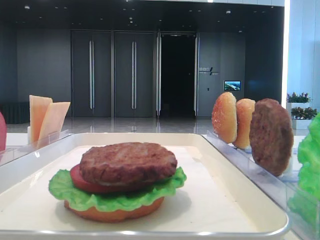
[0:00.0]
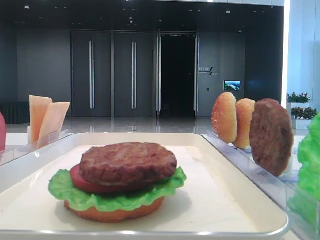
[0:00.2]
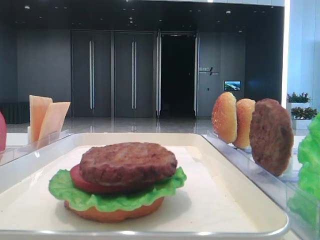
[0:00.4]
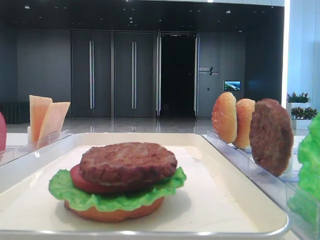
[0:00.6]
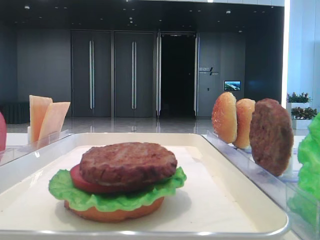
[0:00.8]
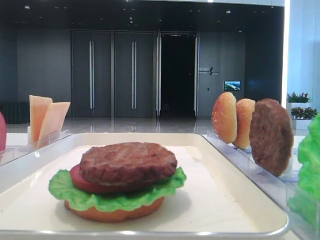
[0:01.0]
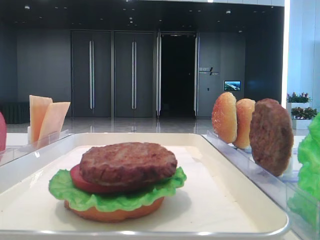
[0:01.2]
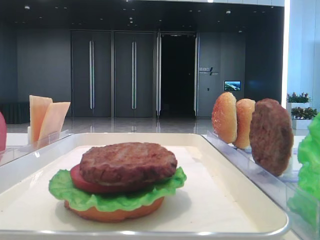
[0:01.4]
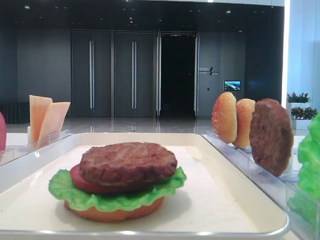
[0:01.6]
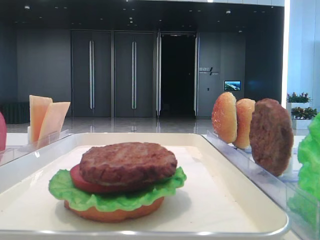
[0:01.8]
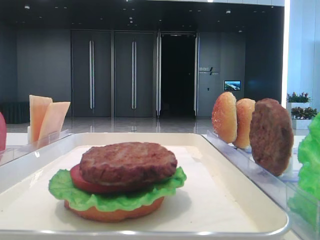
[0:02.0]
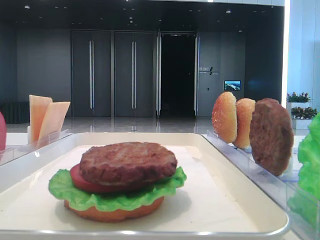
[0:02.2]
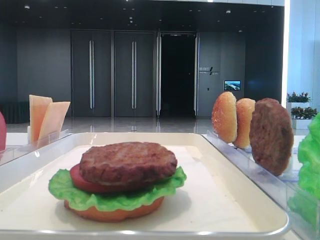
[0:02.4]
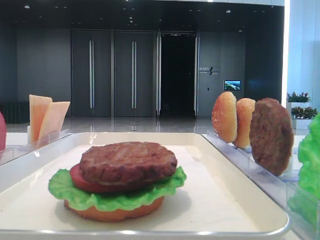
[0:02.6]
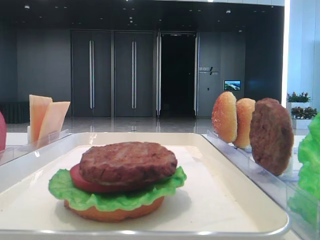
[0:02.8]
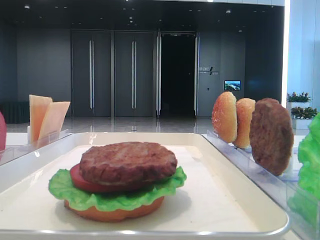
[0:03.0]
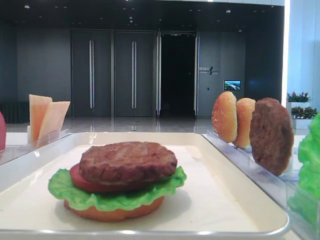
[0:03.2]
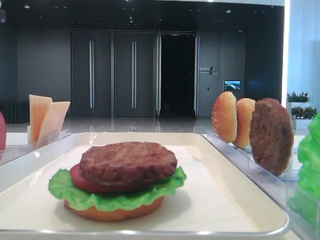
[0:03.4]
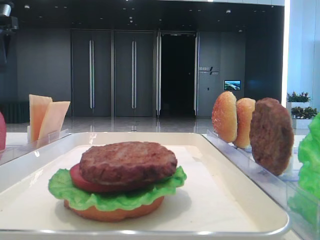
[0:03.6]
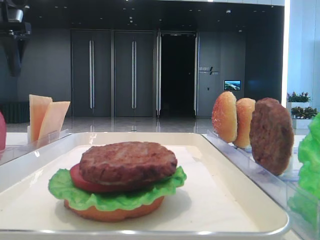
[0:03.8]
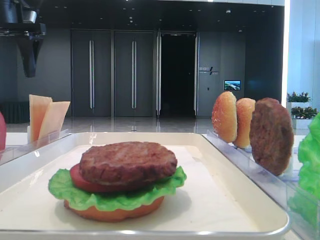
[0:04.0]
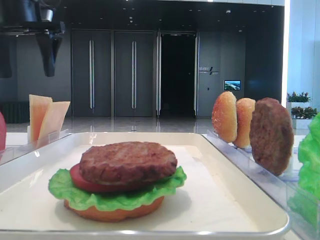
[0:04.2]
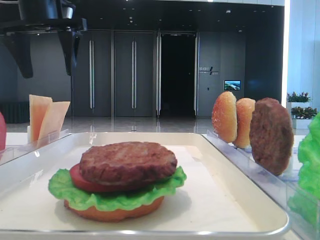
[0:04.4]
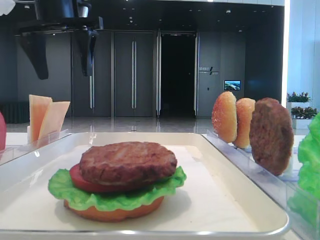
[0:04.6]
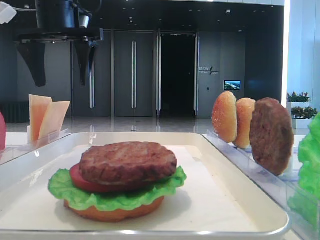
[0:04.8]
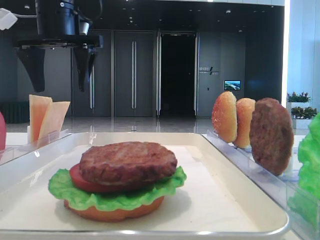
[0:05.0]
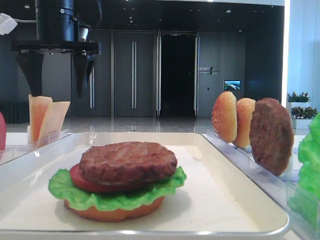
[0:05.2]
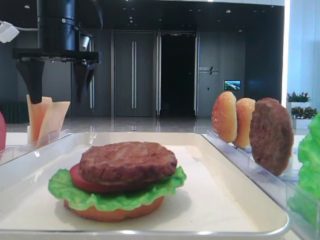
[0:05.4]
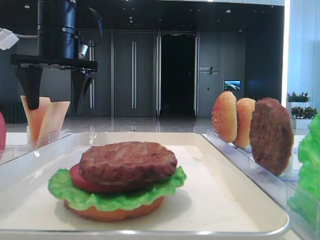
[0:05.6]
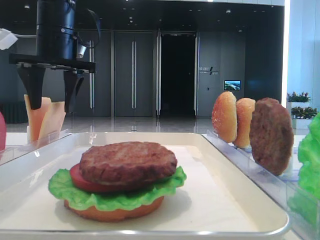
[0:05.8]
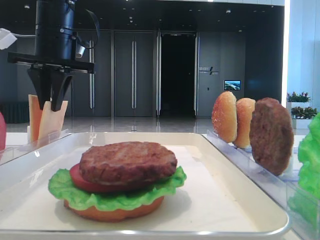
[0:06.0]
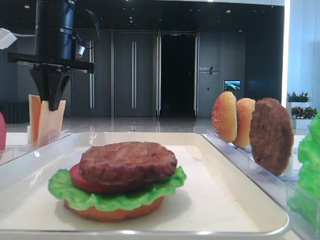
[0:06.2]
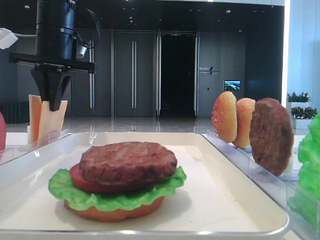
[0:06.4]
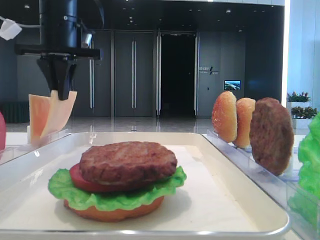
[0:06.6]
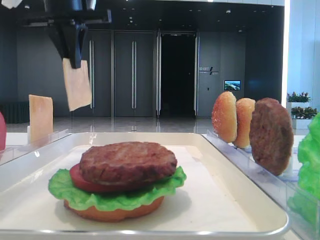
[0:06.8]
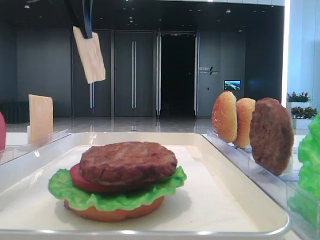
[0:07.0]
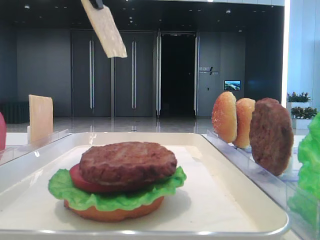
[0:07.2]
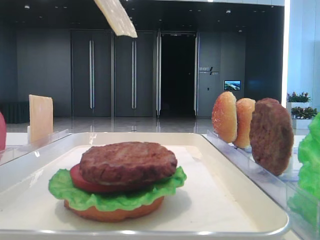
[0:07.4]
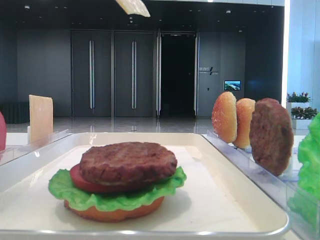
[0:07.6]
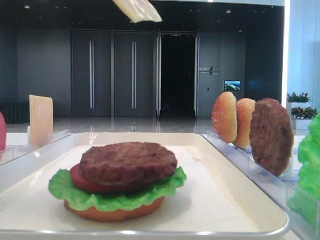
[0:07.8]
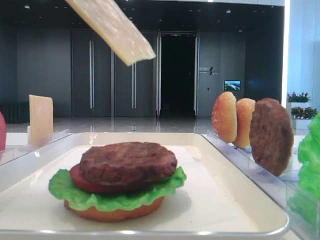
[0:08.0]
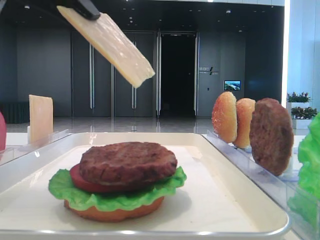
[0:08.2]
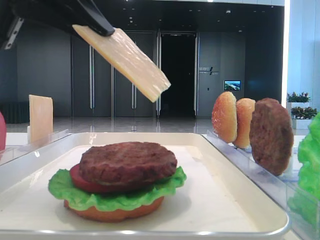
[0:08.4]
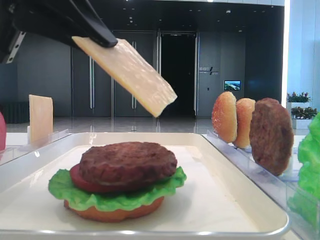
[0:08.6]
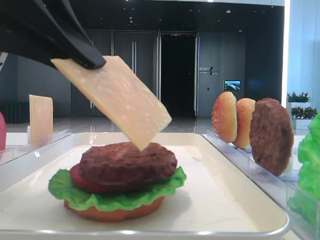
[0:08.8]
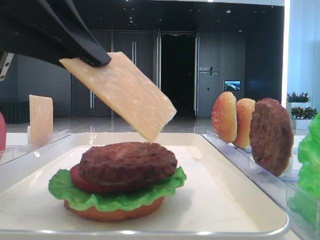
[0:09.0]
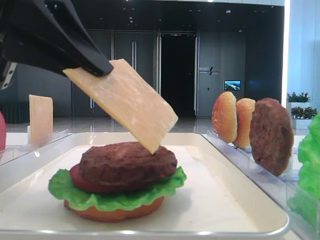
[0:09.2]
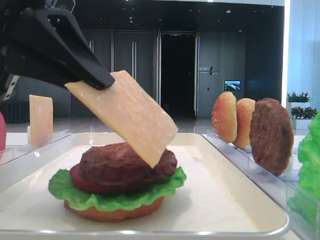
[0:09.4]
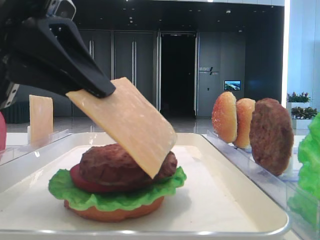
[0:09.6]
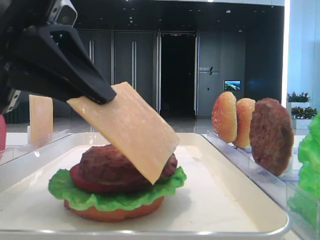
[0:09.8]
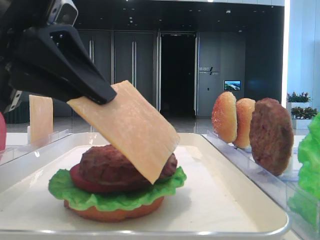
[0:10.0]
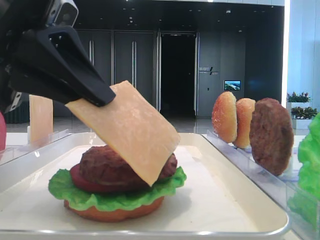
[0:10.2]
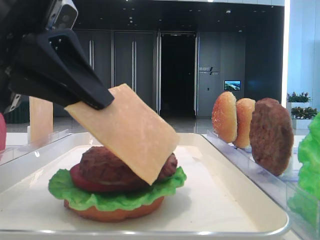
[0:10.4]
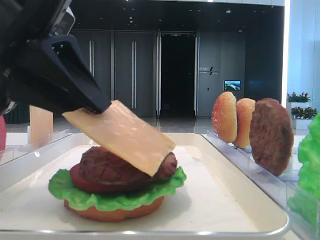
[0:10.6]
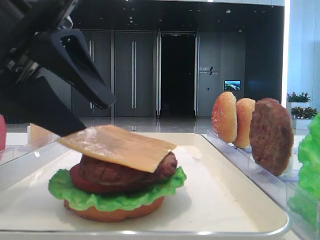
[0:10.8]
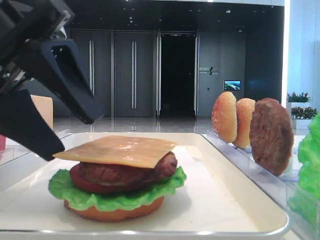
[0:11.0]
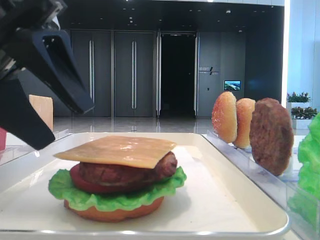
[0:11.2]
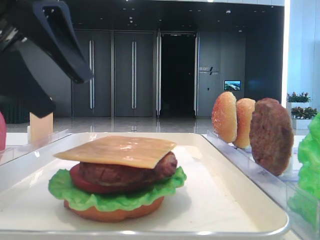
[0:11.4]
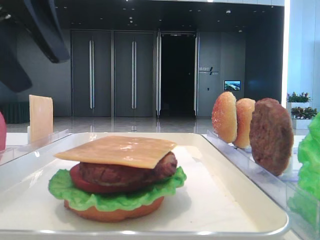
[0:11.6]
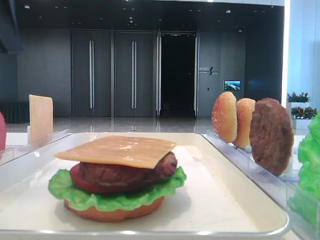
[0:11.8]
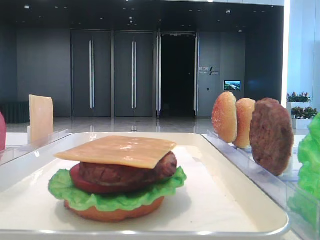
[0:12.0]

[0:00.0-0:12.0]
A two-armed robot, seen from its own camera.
Step, 0:00.0 to 0:06.2: Pick up the cheese slice with the left hand.
Step, 0:06.6 to 0:10.8: Place the cheese slice on the patty with the left hand.
0:03.0 to 0:04.4: The left gripper moves to the right and forward, some 15 cm.
0:04.4 to 0:06.0: The left gripper shifts roughly 5 cm downward, and closes.
0:06.0 to 0:07.6: The left gripper heads backward and upward, covering roughly 25 cm.
0:07.6 to 0:09.0: The left gripper travels downward by roughly 10 cm.
0:09.0 to 0:10.4: The grippers stay close to where they were, moving slightly.
0:10.4 to 0:12.0: The left gripper heads to the left and upward, covering approximately 15 cm, and opens its fingers.

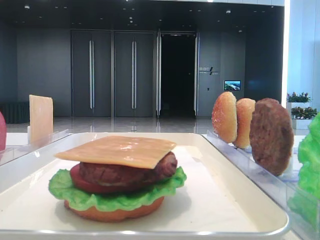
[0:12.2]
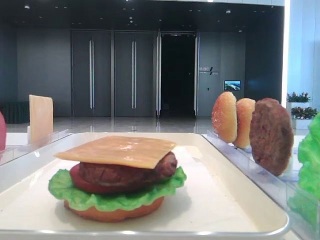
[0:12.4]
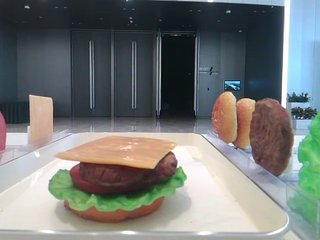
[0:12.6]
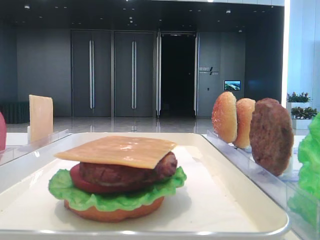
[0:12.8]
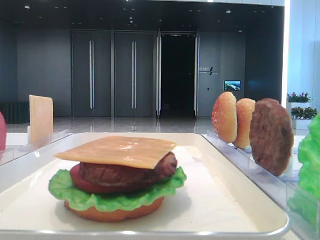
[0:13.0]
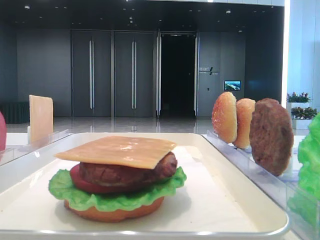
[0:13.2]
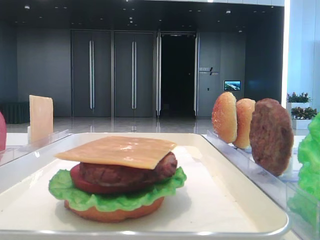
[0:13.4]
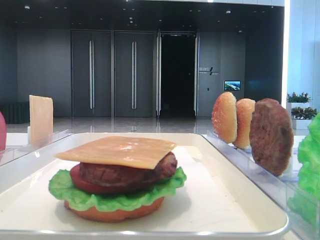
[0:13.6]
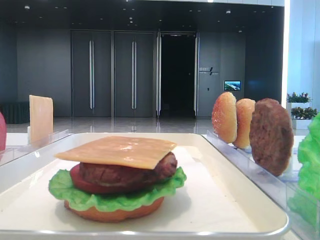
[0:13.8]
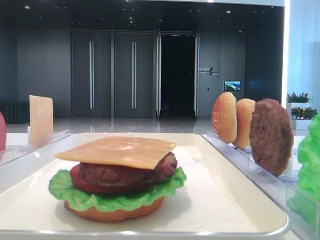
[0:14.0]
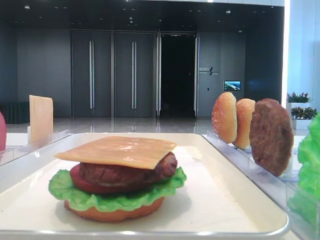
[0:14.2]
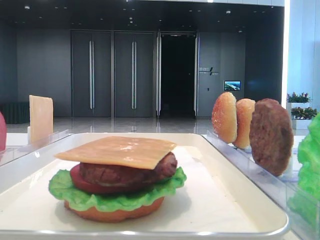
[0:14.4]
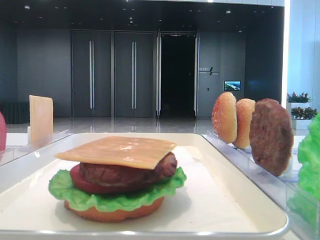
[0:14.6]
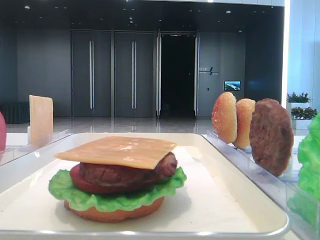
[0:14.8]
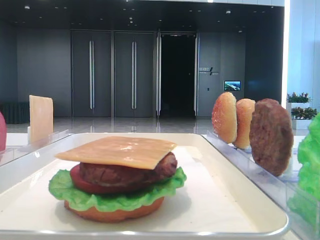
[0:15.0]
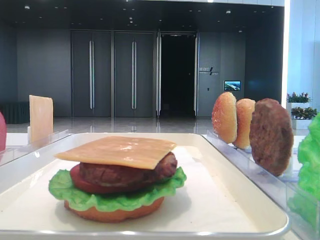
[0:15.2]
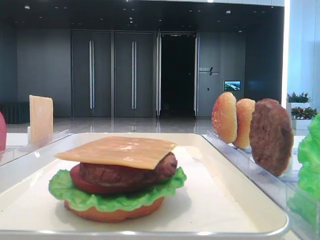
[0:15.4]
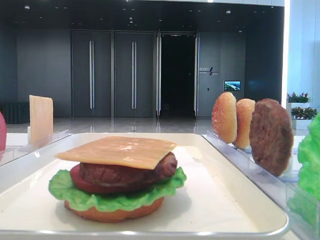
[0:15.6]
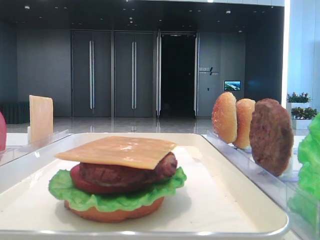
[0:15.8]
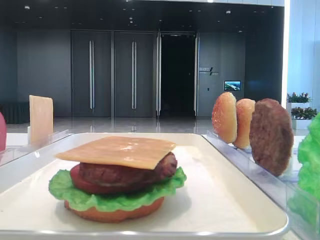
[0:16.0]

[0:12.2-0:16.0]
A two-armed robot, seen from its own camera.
0:14.8 to 0:16.0: Both grippers stay put.

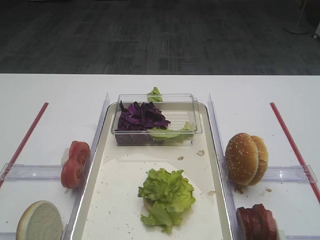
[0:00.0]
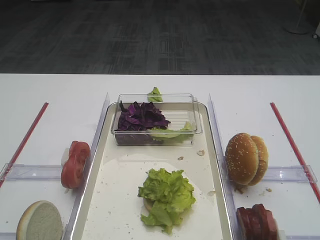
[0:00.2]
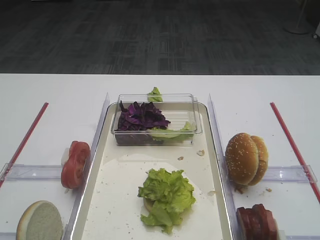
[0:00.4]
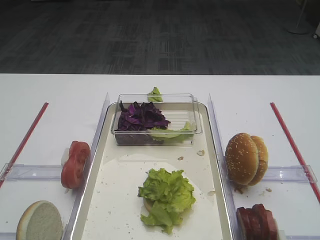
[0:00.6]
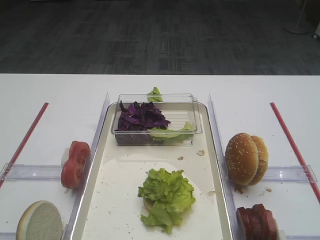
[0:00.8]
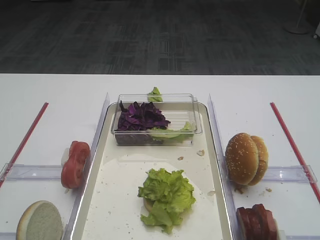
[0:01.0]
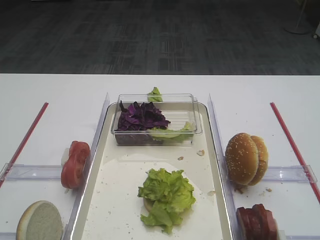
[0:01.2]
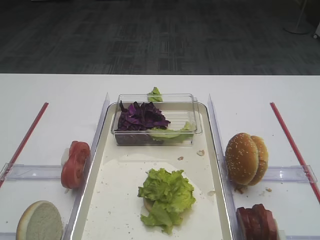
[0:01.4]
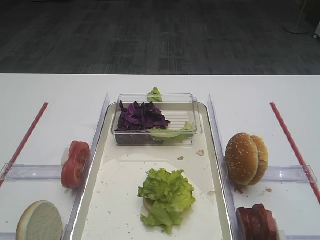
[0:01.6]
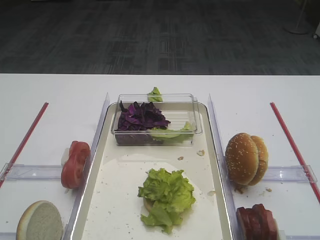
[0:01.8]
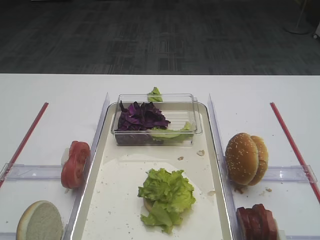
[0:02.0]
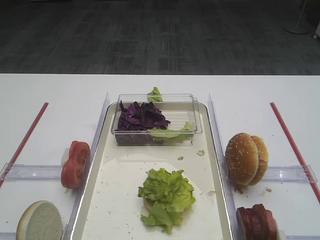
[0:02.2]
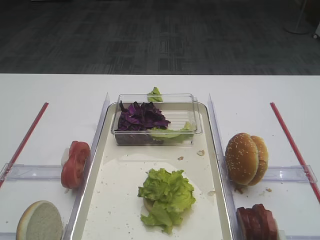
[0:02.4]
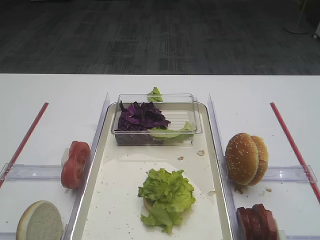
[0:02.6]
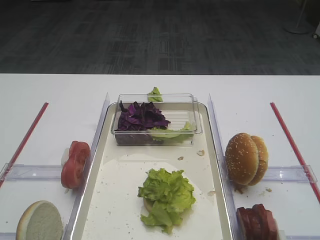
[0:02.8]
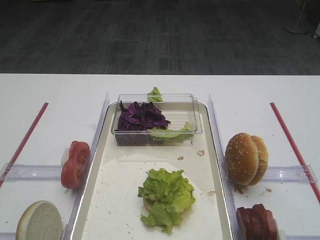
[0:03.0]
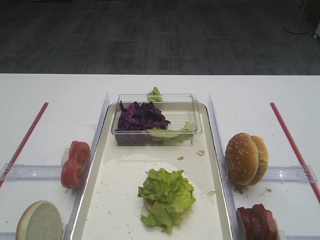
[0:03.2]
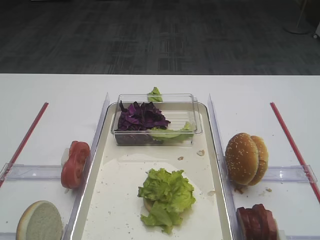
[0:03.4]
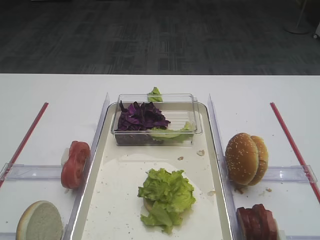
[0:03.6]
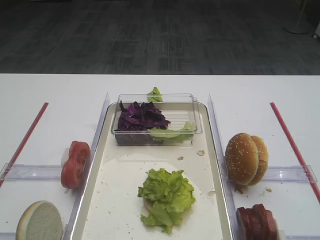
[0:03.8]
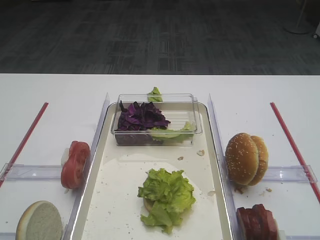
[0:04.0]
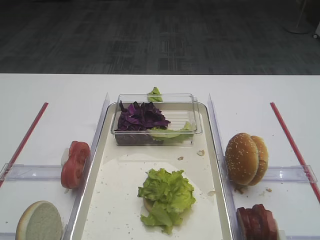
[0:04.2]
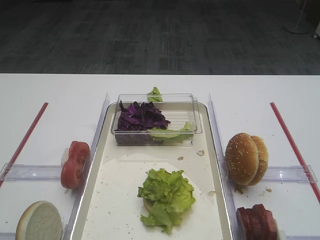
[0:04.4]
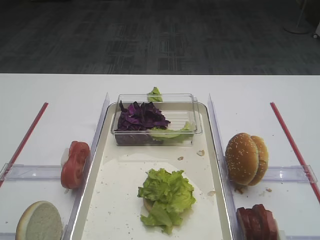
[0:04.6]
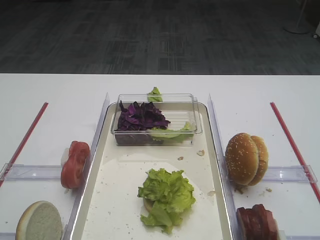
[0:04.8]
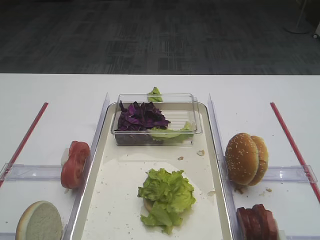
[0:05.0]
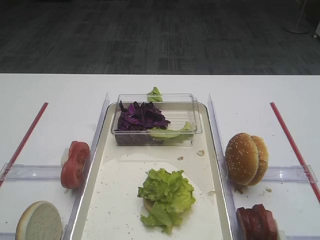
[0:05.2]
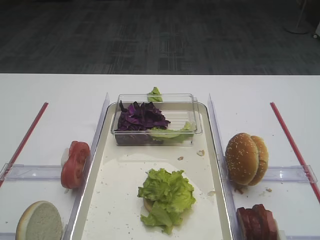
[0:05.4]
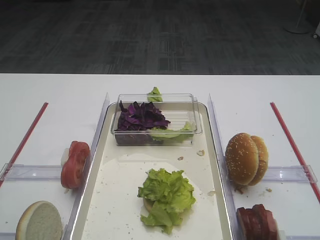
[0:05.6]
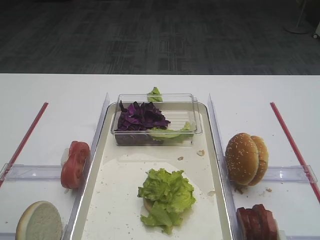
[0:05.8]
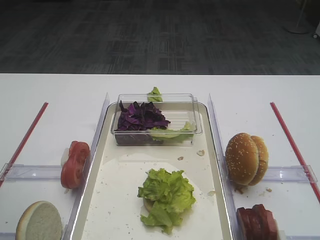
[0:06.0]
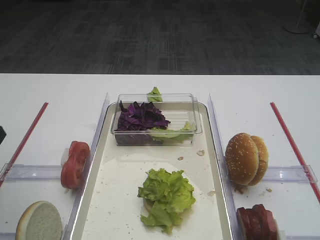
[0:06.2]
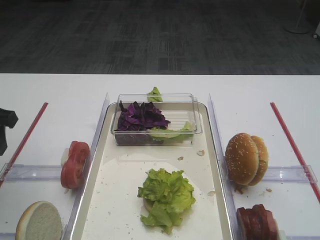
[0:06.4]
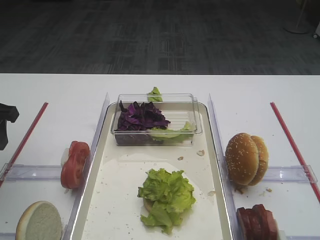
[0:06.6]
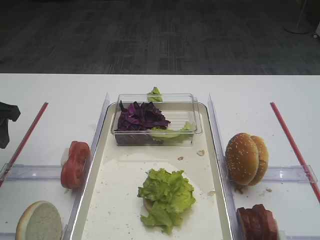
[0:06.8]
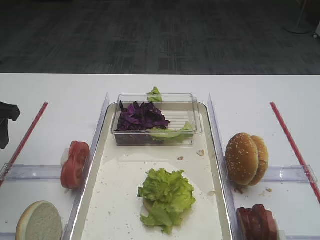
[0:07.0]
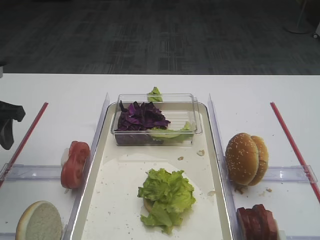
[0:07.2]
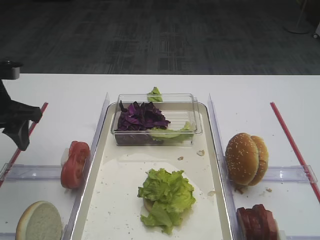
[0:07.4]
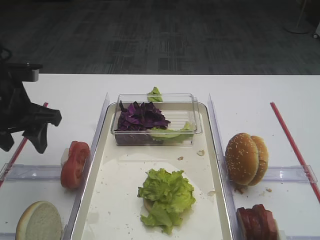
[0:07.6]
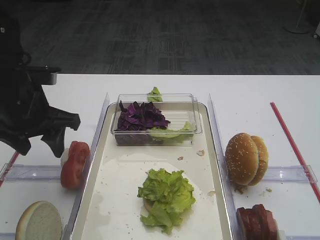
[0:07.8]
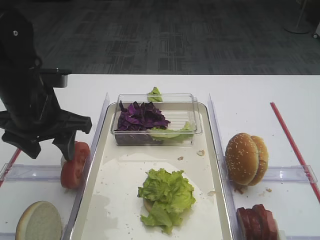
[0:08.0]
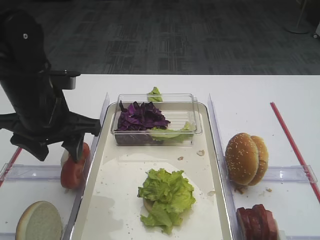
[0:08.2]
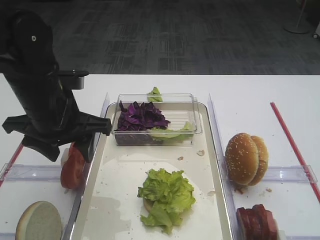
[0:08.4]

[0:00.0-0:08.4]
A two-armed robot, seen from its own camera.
0:01.4 to 0:02.8: The two grippers keep their place.
0:05.6 to 0:07.0: The left gripper goes approximately 20 cm forward.
0:07.0 to 0:08.4: The left gripper is displaced to the right by roughly 15 cm.
